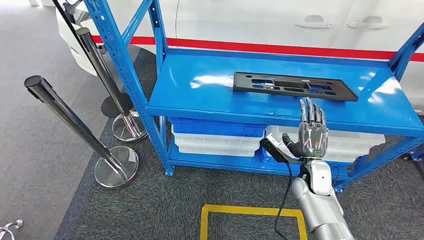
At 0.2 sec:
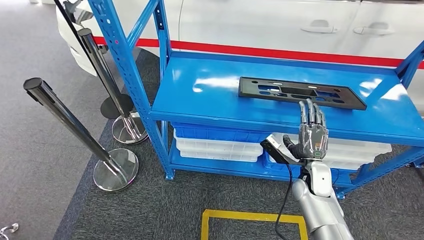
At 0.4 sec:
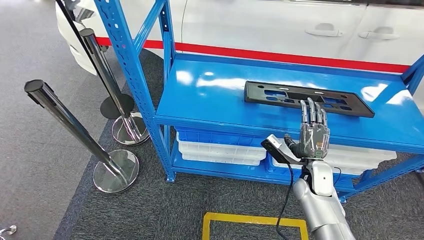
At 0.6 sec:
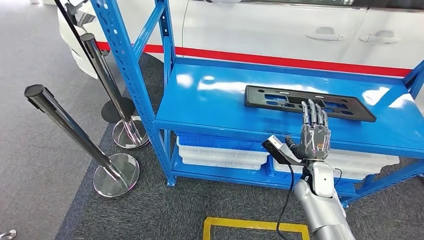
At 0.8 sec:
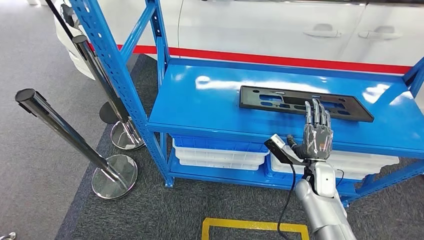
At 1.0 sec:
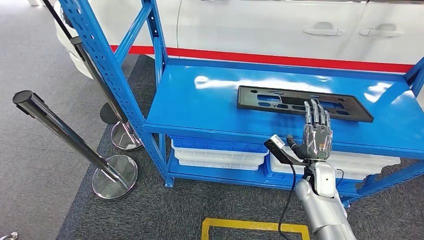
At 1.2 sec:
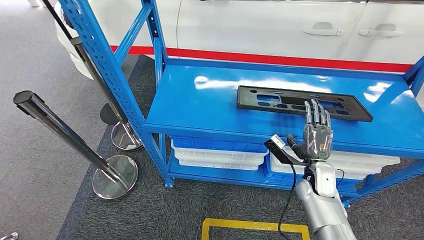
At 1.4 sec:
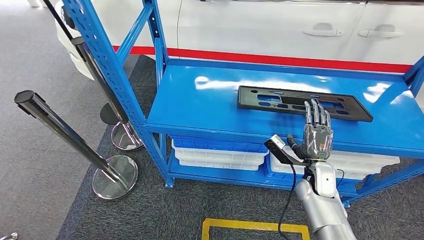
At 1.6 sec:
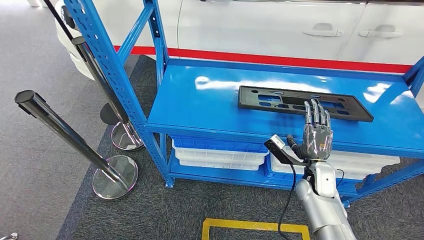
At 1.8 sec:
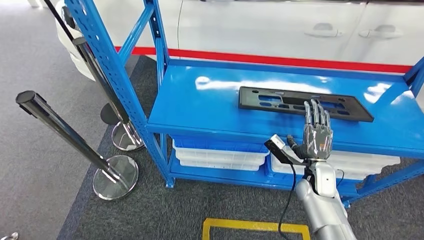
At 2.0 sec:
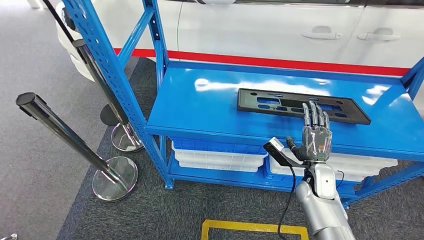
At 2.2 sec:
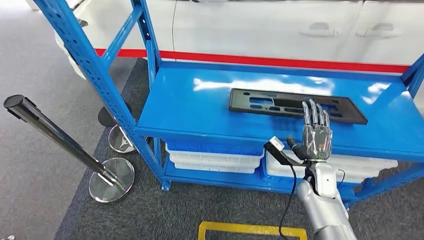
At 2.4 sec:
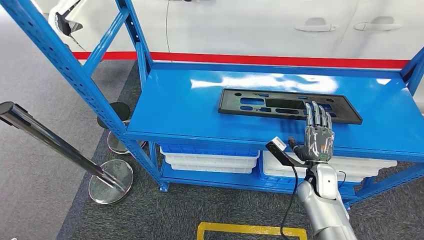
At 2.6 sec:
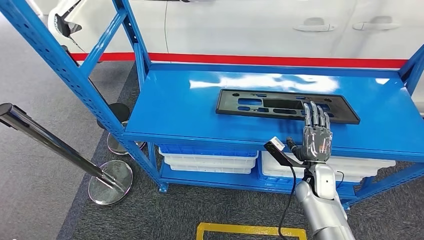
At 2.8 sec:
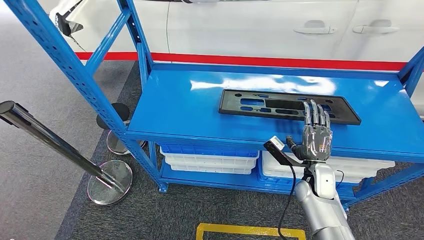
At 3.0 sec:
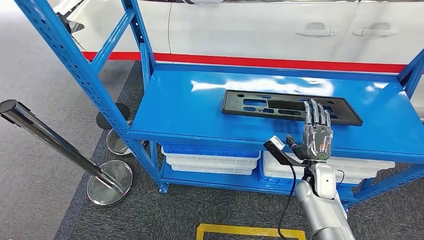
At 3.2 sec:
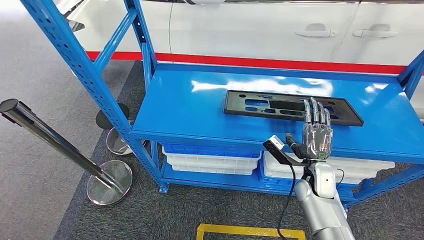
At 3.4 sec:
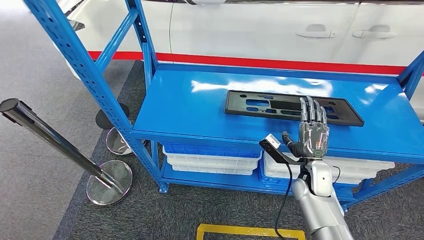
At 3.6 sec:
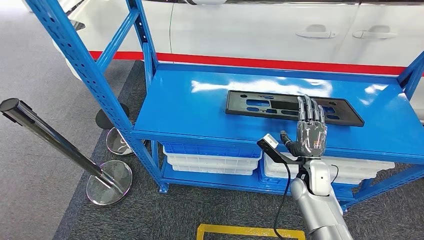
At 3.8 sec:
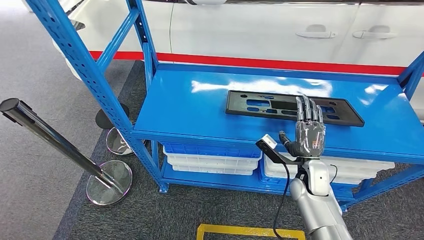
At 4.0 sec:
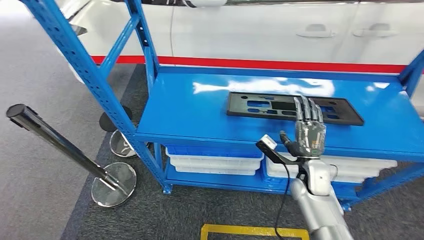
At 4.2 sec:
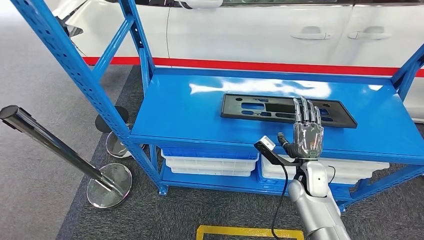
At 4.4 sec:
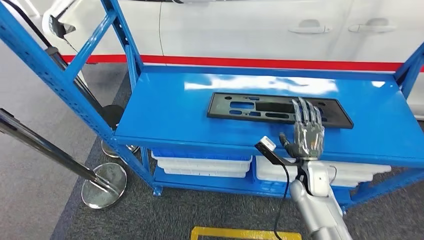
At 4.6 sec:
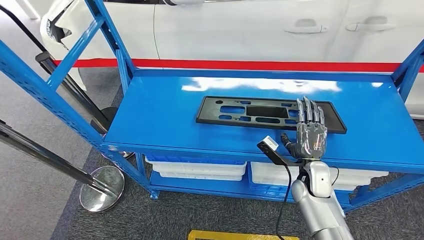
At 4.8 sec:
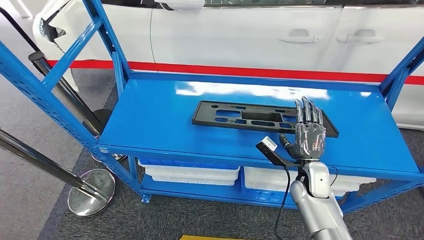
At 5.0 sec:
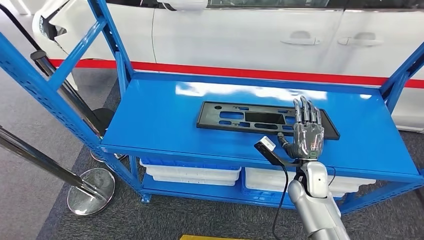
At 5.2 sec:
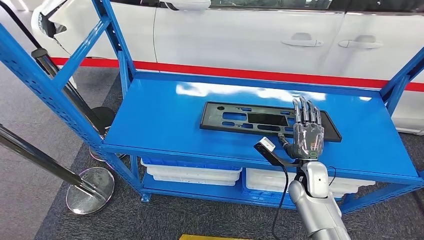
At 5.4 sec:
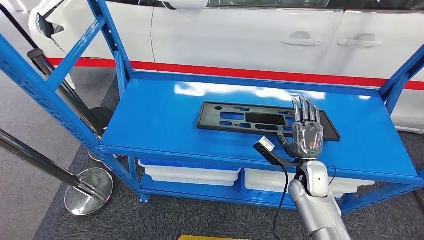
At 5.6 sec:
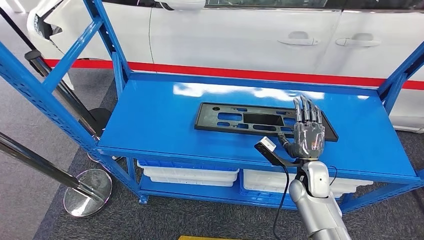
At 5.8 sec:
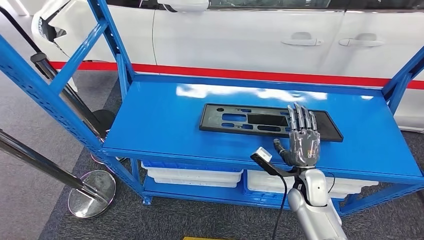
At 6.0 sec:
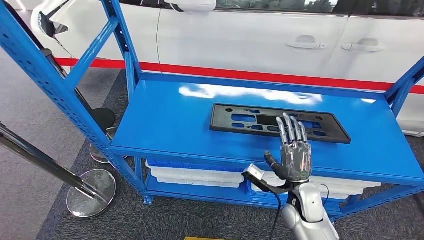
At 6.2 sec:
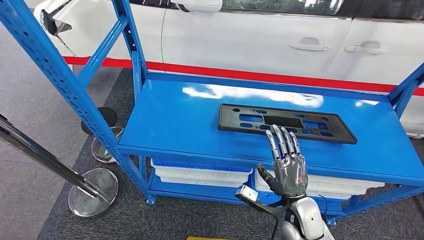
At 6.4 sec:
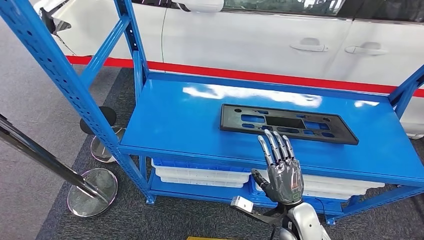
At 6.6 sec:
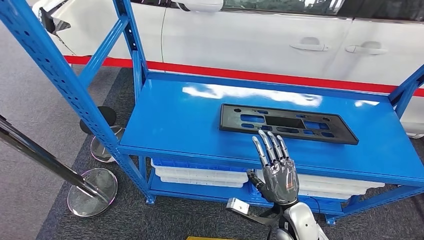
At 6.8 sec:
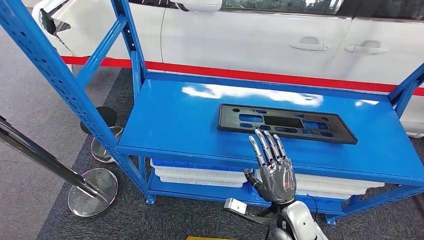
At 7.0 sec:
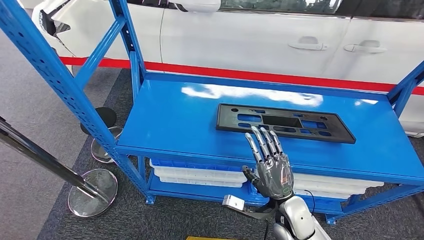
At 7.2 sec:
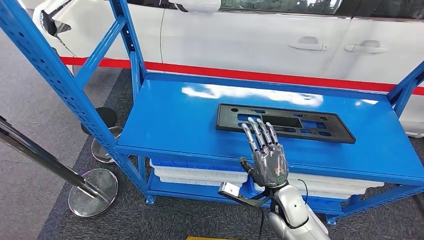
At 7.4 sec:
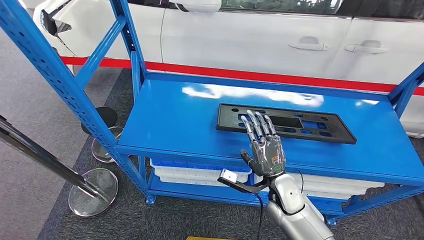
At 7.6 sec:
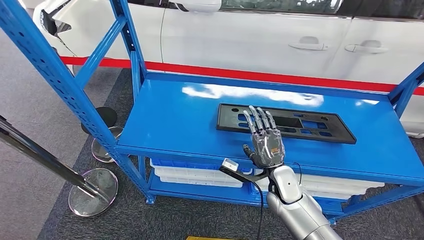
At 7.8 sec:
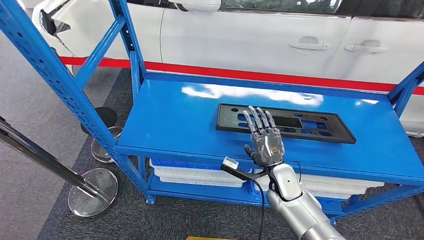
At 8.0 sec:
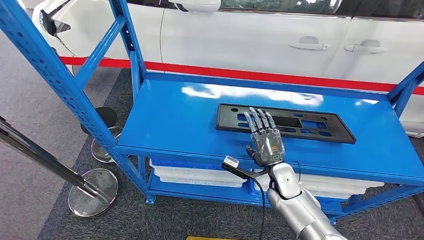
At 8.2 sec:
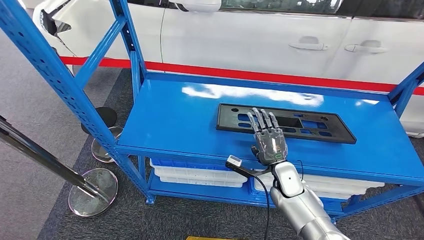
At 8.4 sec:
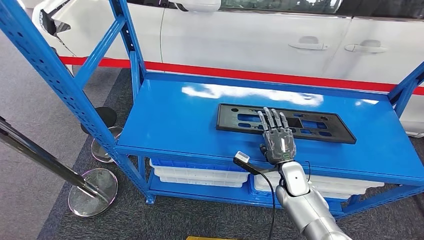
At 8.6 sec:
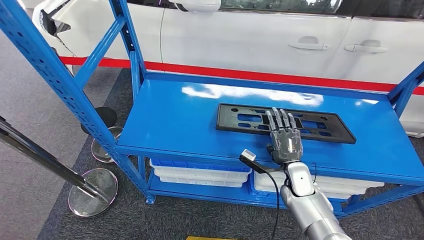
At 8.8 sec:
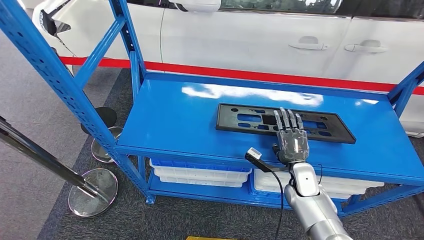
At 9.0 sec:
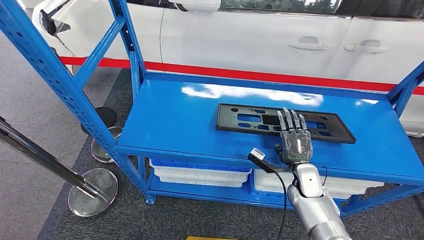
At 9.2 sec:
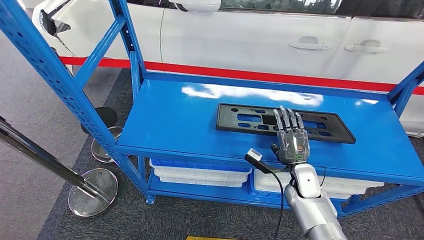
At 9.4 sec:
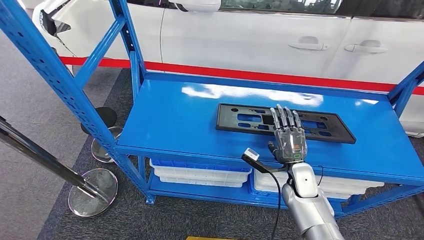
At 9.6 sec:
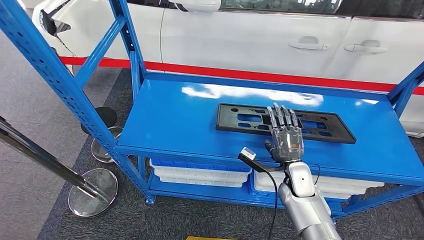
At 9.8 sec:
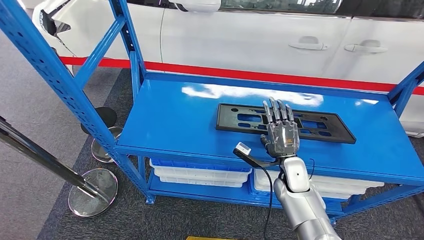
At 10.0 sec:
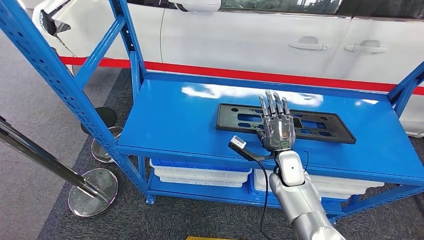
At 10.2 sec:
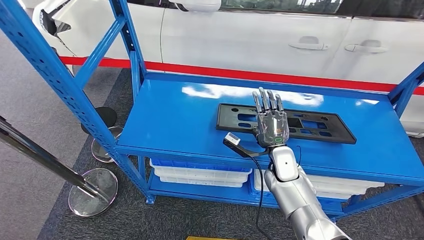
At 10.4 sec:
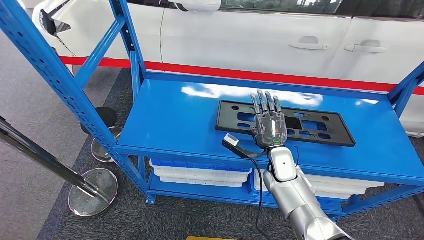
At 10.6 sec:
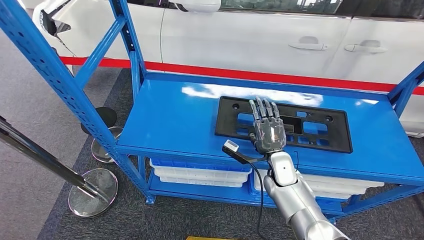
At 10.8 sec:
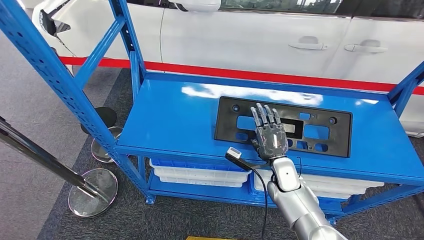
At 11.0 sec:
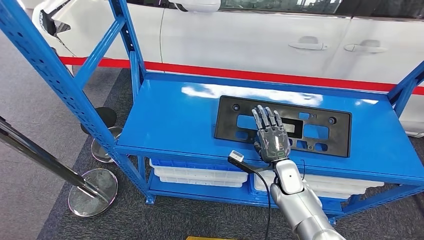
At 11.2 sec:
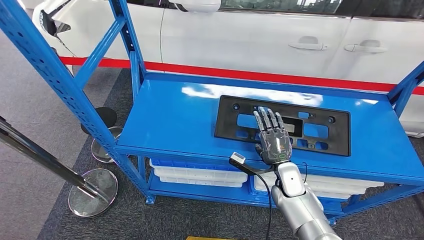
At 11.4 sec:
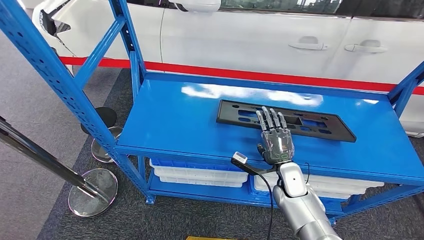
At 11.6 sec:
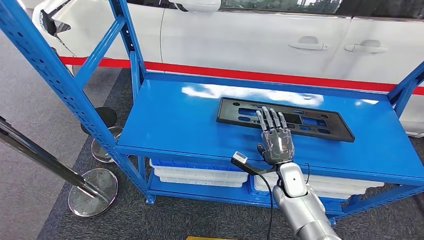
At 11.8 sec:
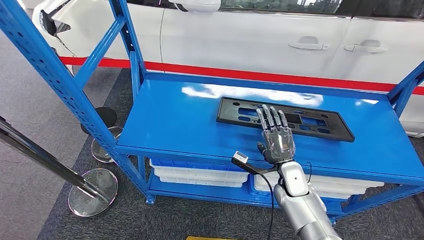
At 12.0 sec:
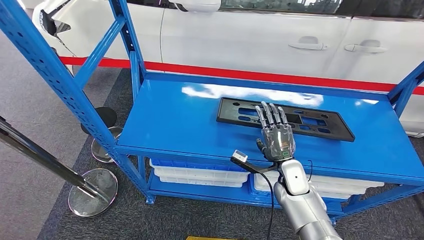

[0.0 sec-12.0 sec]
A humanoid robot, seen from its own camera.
6.0 sec to 7.6 sec: The right hand changes place by roughly 5 cm.
7.6 sec to 9.0 sec: The right hand shifts approximately 10 cm to the right.
9.0 sec to 10.4 sec: The right hand goes some 10 cm to the left.
10.4 sec to 12.0 sec: There are only small adjustments of the hands.

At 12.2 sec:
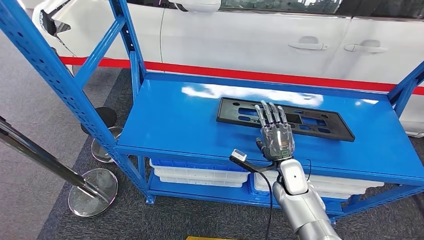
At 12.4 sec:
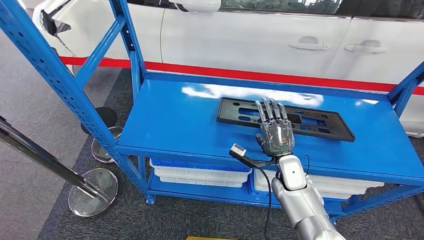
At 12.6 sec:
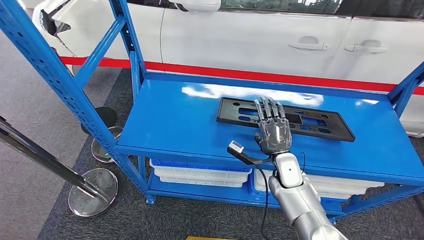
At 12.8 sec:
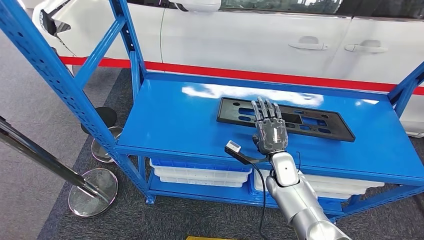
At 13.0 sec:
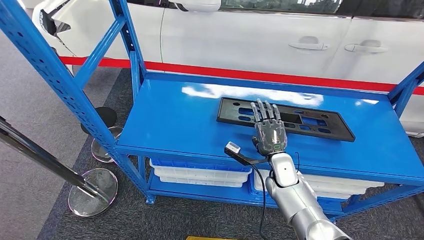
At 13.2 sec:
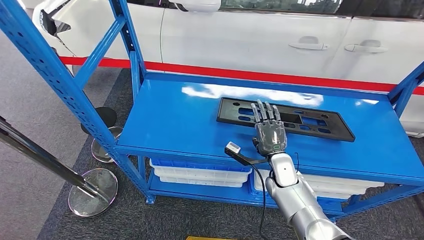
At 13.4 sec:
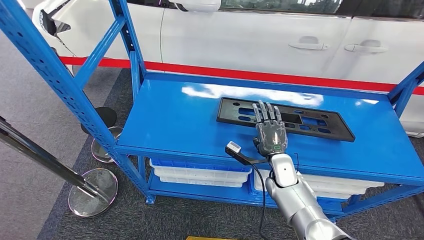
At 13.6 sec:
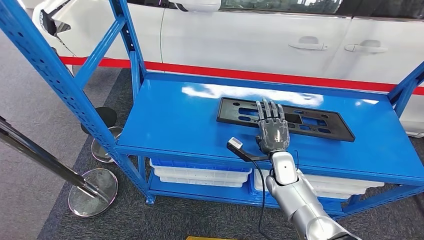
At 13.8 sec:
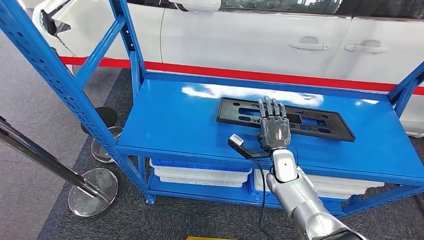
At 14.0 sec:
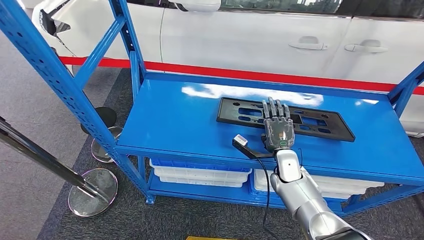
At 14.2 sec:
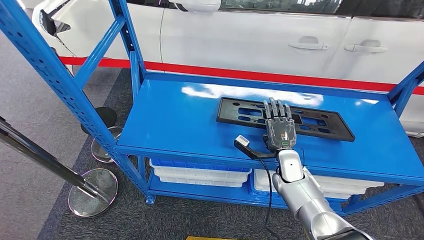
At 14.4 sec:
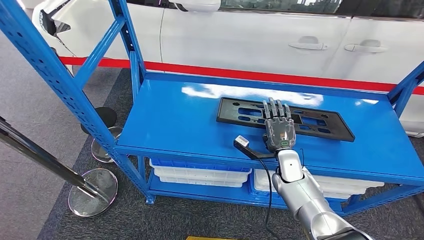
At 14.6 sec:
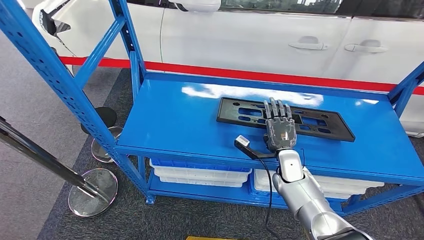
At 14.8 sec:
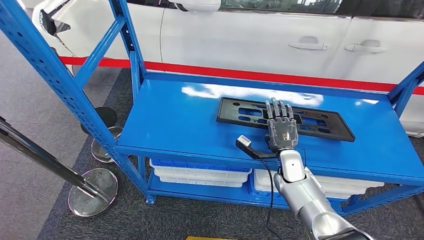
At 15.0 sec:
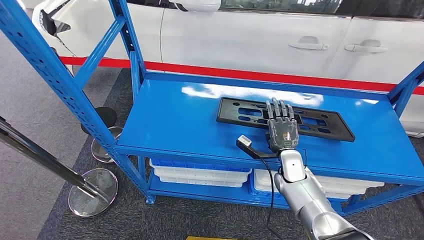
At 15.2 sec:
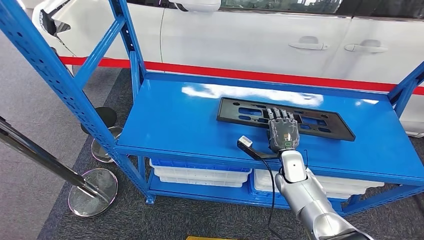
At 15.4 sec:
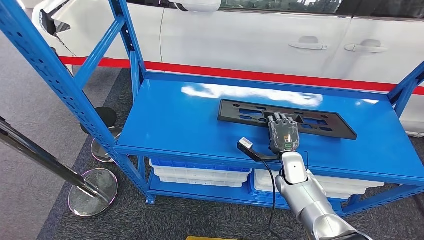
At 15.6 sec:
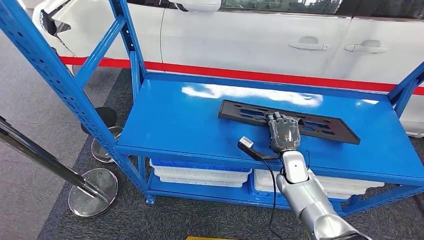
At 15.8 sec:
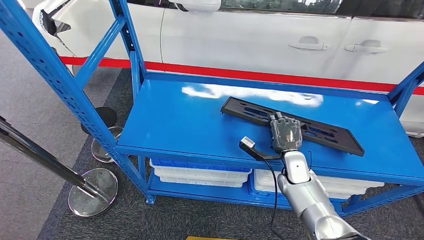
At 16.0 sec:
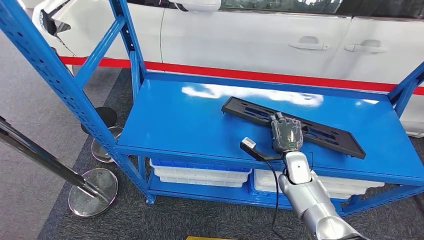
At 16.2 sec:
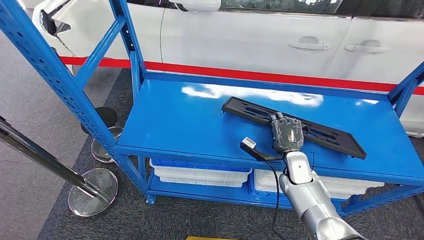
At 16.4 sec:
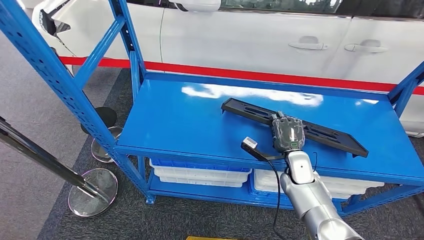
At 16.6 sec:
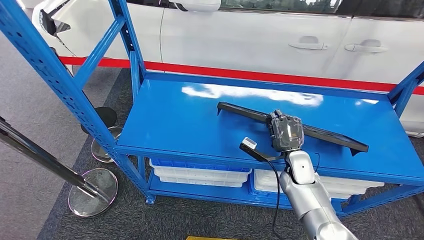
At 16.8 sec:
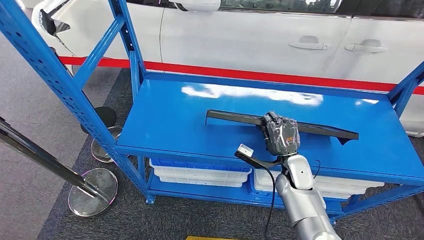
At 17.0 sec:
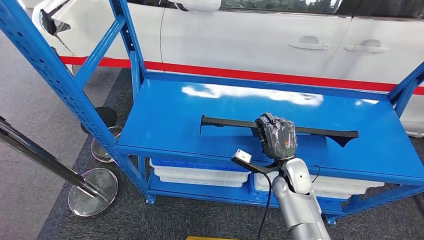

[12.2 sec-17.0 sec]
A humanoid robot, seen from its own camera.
Step, 12.2 sec to 17.0 sec: Pick up the large material from the shelf.
12.2 sec to 15.4 sec: The hands stay close to where they were, moving slightly.
